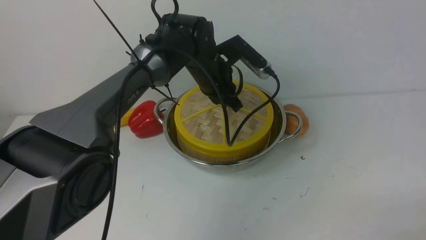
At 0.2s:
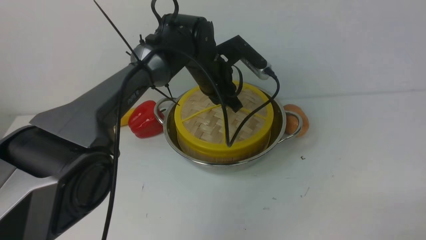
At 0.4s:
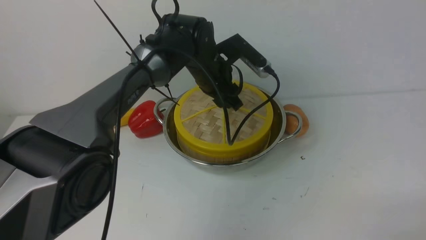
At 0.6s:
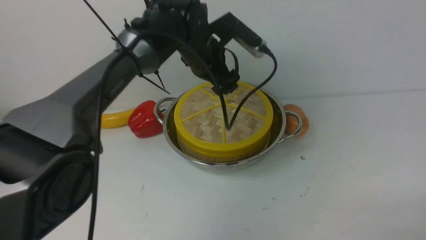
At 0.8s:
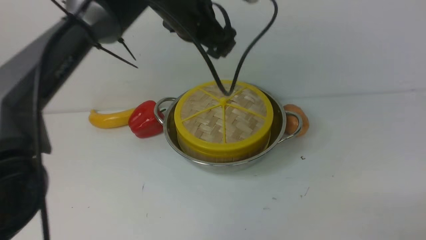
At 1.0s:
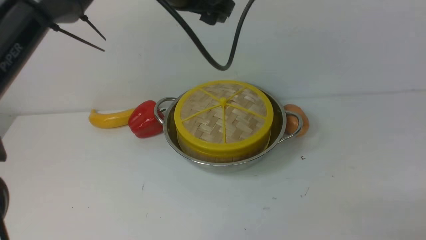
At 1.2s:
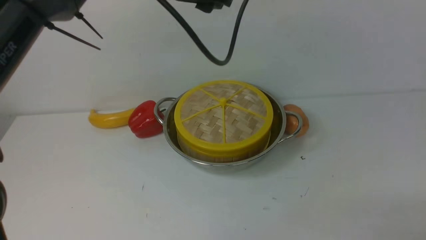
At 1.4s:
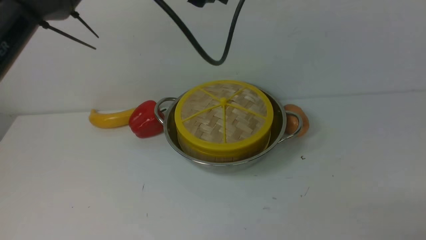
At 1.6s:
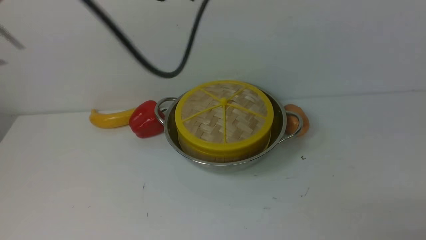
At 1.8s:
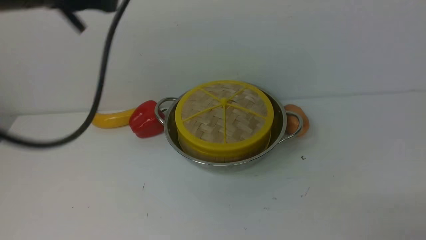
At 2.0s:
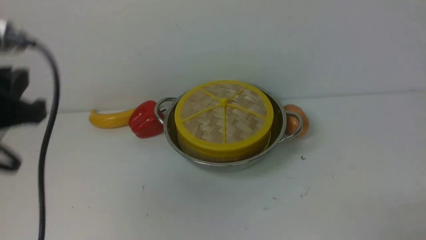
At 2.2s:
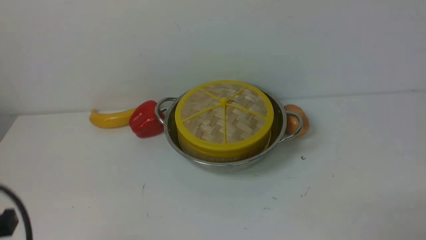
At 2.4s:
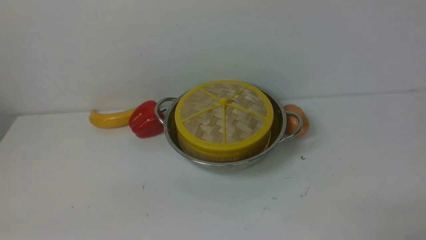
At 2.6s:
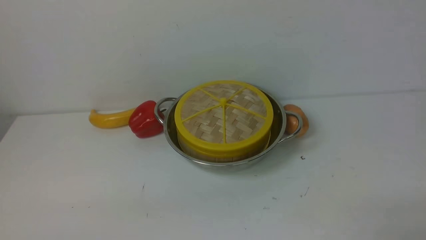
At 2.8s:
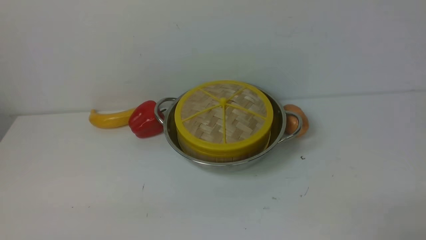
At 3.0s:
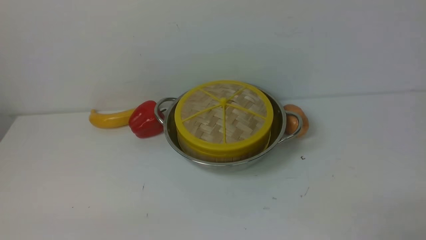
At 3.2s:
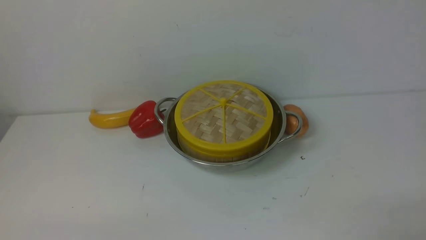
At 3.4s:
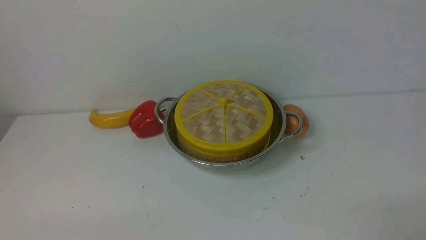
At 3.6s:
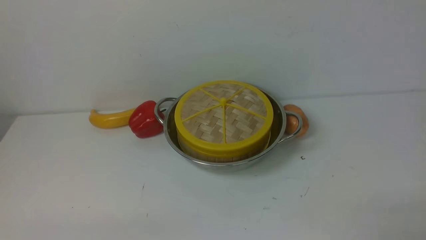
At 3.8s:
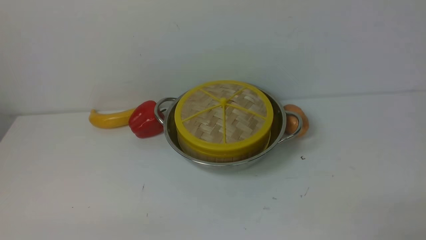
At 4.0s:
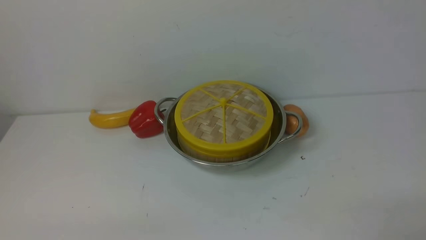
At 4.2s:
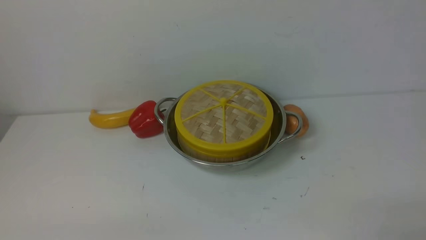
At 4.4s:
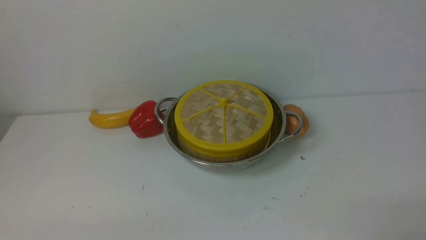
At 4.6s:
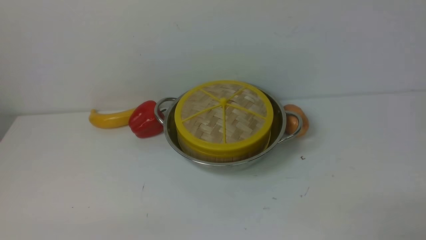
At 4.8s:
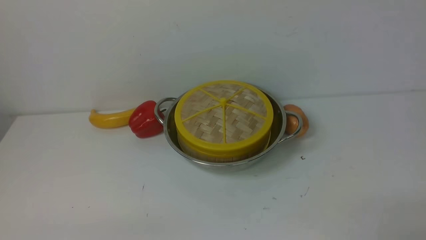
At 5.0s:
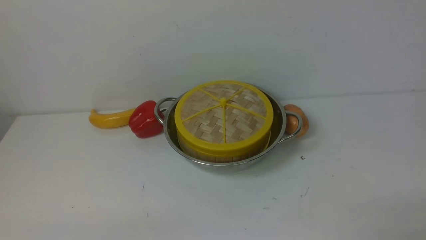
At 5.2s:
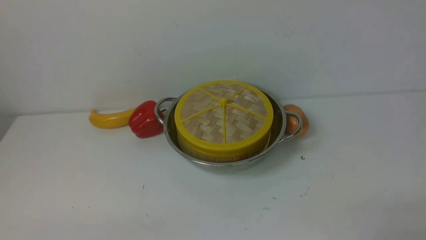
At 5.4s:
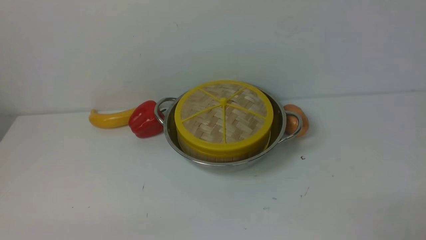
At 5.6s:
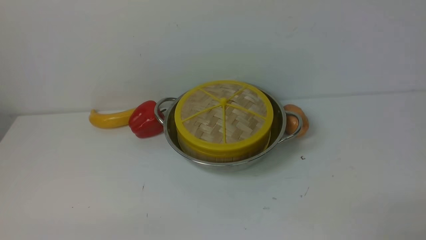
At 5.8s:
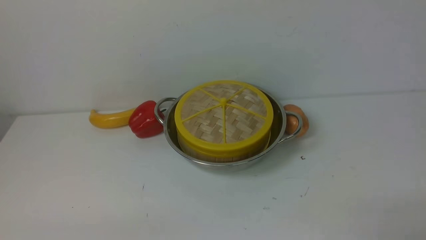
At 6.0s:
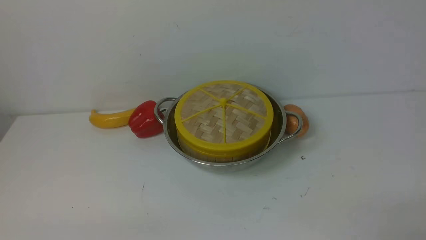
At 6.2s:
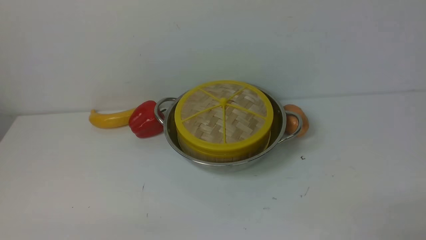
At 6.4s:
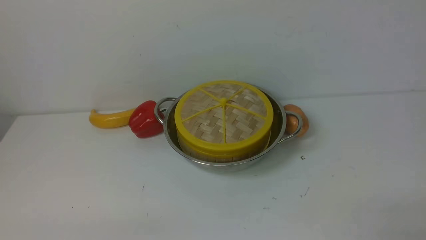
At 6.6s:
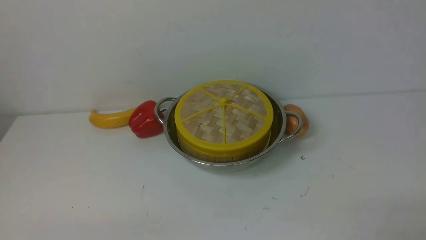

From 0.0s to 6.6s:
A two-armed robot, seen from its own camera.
Task of the whole recording: place the steamer in the pot on the white table, and put the lid on the steamer.
From 0.0s to 1.6s: The left gripper shifts approximately 25 cm upward, backward and to the left, and opens, then closes again.
From 1.6s to 3.2s: The left gripper shifts about 40 cm backward, downward and to the left.
From 5.0s to 6.6s: Both grippers stay put.

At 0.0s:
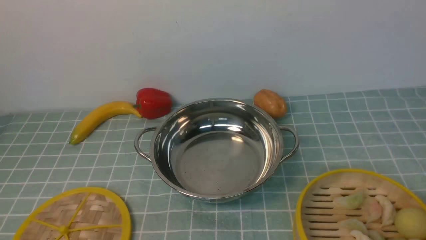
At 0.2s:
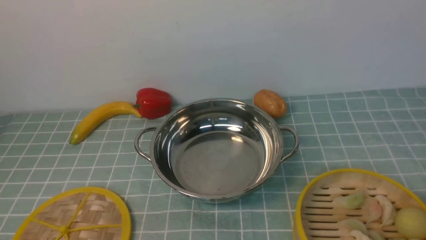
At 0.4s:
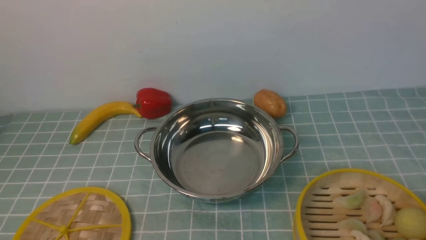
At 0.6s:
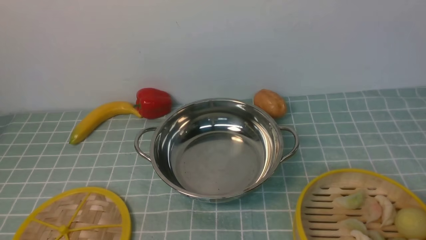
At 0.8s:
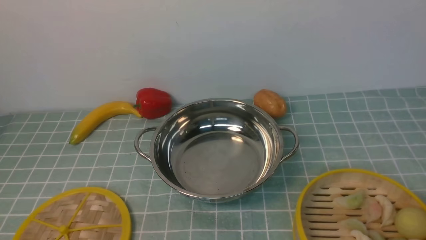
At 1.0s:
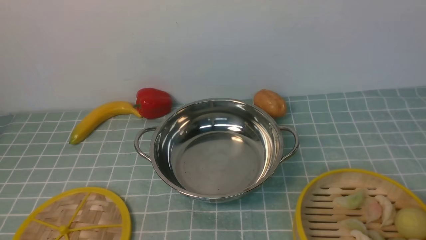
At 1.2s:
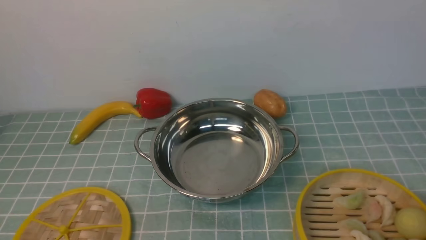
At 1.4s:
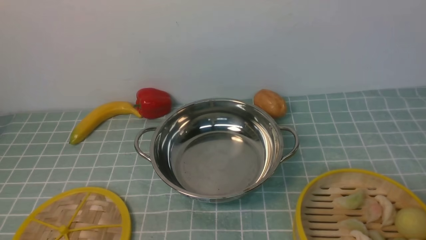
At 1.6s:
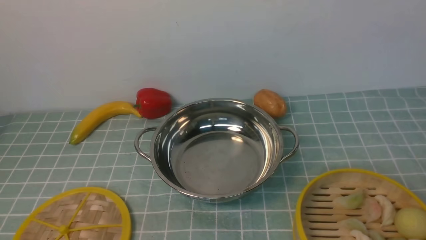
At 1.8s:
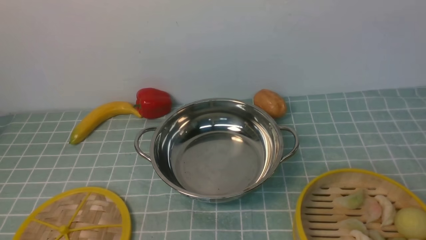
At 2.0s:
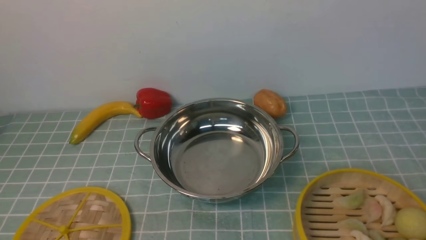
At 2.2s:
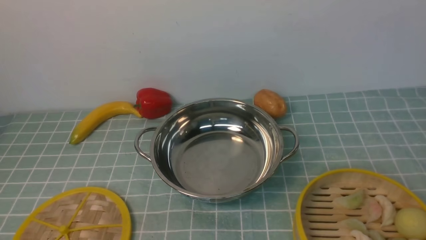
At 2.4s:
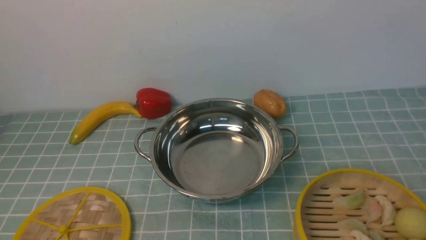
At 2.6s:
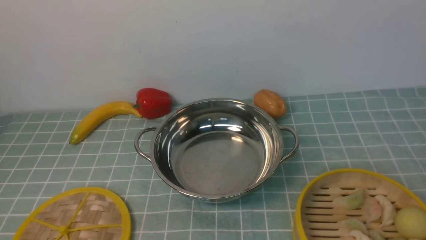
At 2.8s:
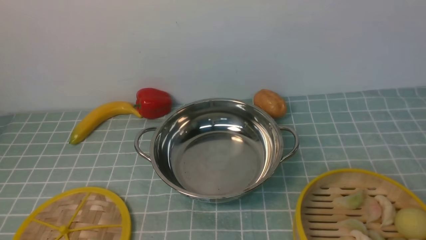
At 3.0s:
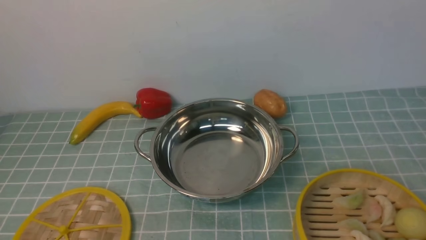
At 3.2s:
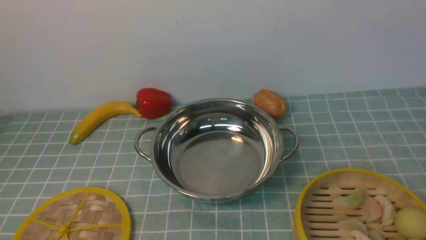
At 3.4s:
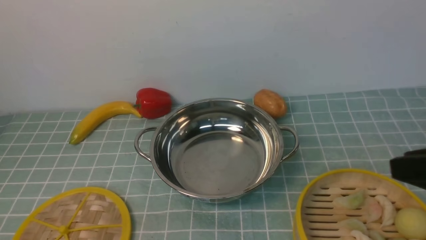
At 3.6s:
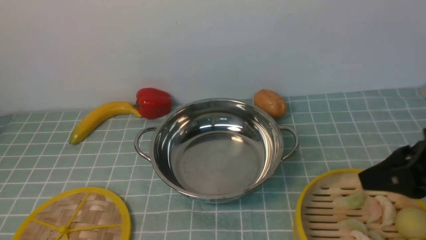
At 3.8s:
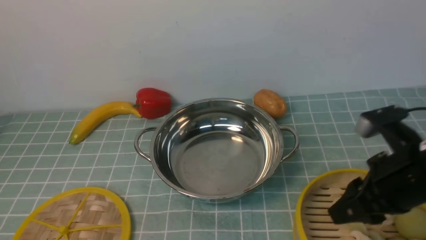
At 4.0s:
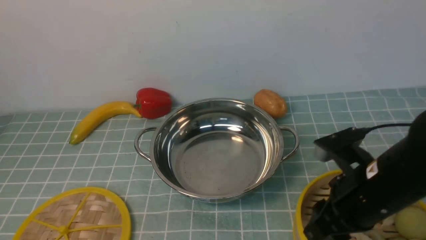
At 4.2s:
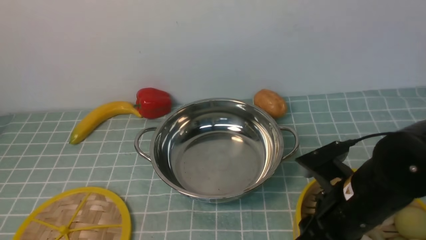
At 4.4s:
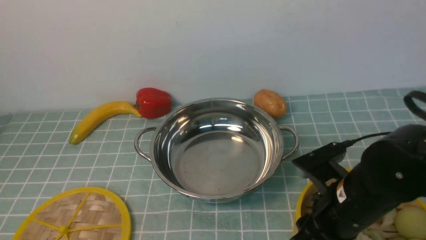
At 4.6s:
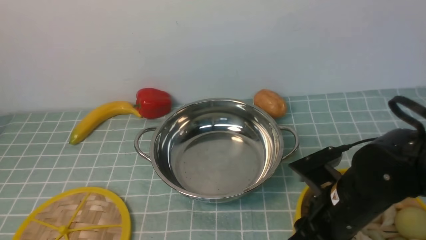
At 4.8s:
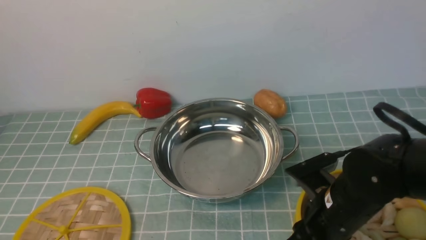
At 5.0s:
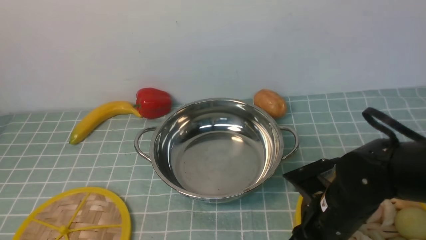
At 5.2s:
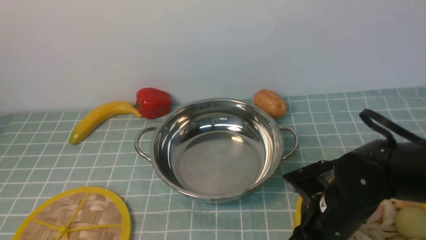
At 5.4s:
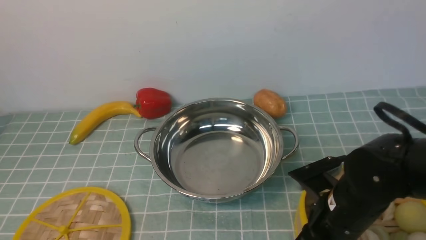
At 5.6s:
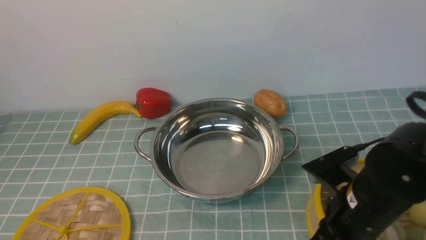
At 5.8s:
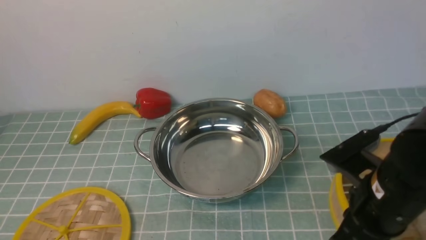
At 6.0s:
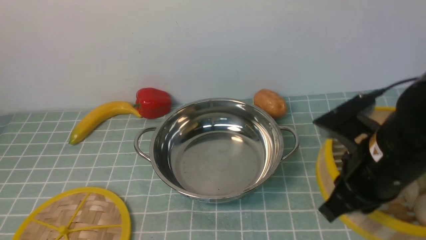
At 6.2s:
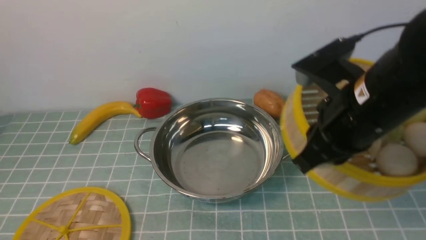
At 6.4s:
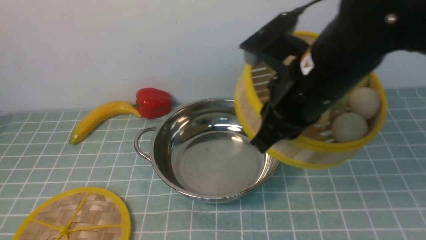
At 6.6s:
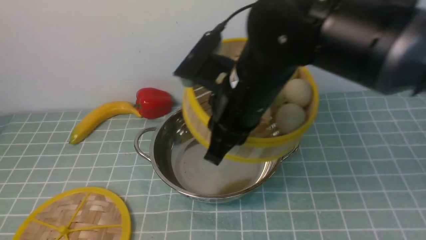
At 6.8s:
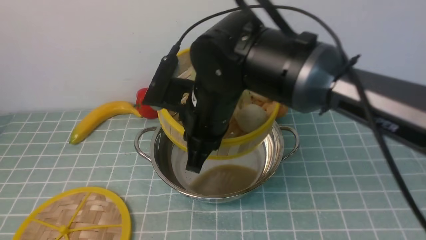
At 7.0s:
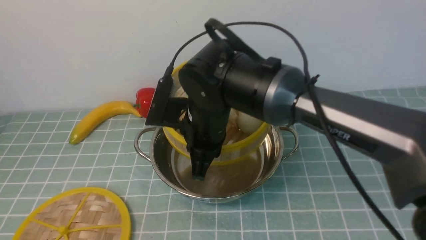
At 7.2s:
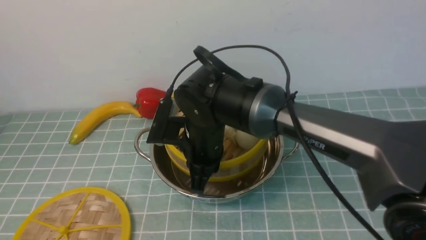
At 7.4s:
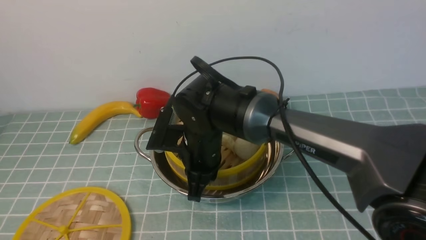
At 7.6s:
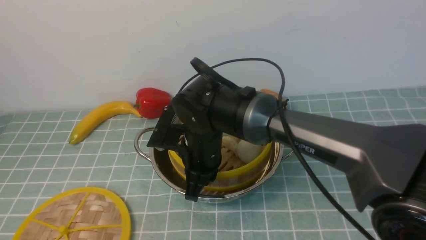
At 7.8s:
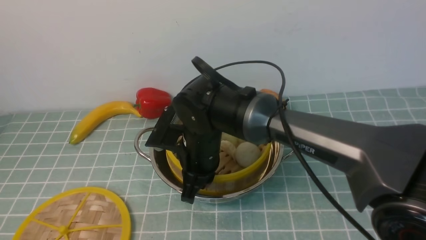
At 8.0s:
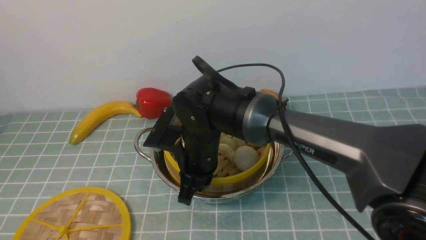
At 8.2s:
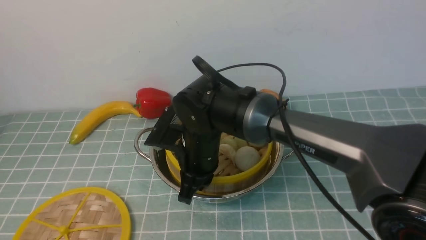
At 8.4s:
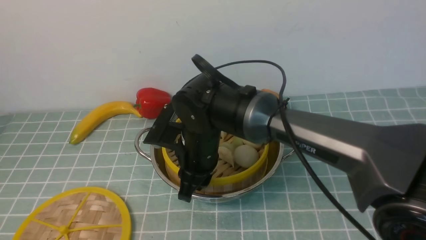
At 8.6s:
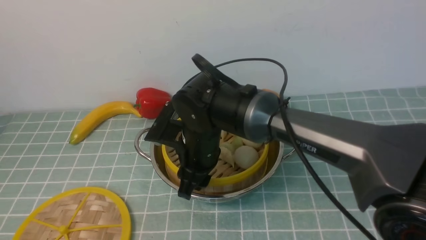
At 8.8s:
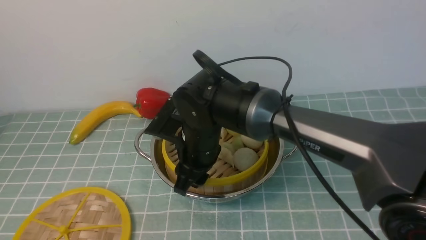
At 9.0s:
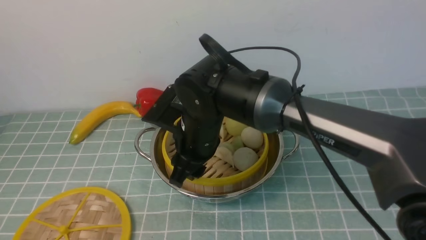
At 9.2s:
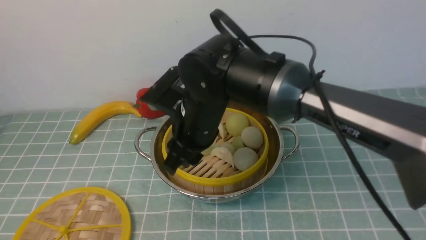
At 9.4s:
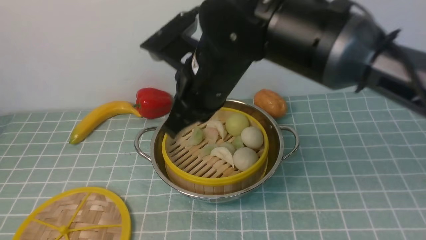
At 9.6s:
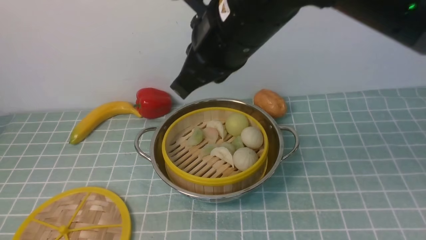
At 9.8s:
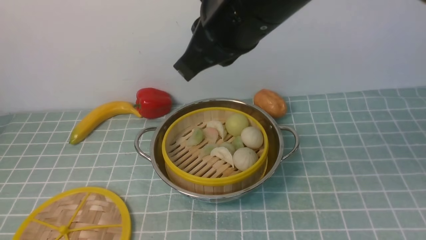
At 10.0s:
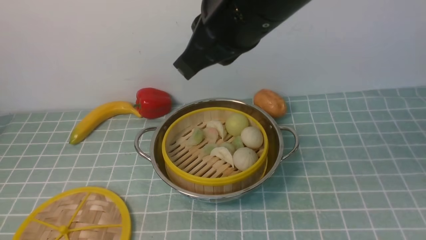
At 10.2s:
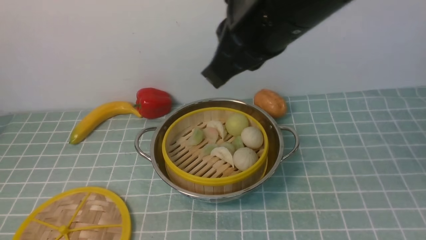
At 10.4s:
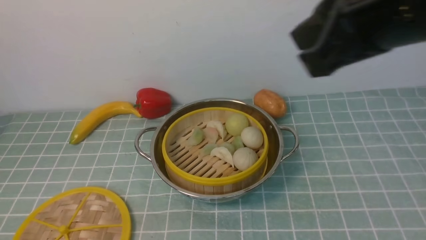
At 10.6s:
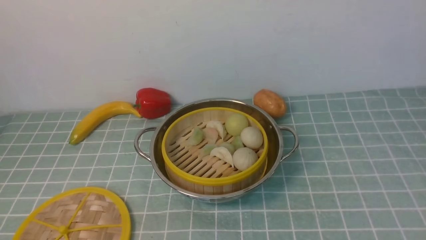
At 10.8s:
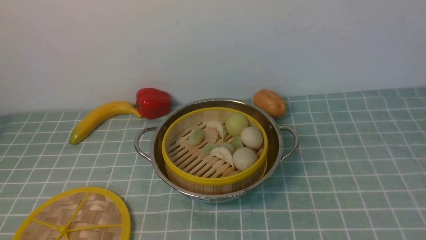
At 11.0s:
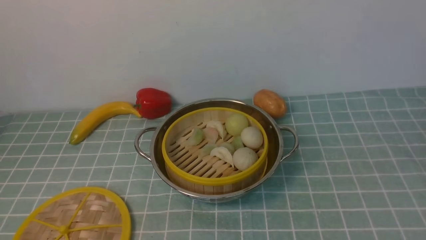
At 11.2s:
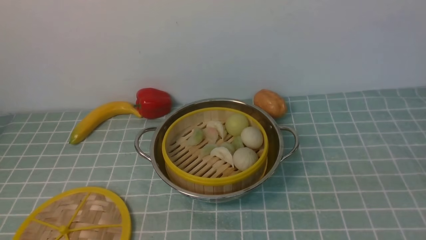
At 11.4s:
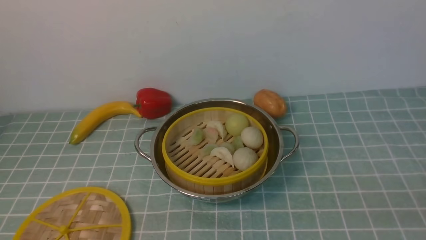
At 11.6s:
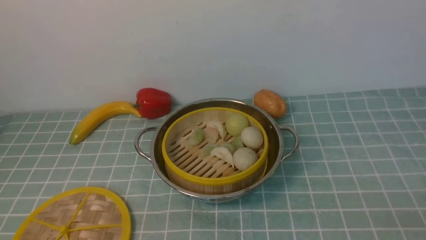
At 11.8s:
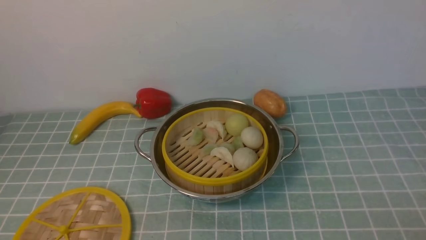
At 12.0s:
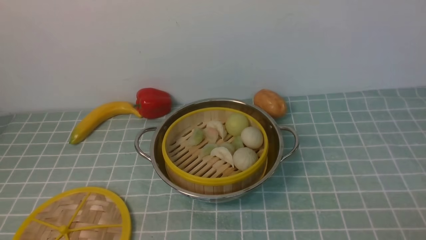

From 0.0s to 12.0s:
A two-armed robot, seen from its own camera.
Task of the whole recording: place the steamer in the pot on the blue tablecloth, and put the lid on the steamer.
Step, from 0.0s to 5.8s: use the right arm to lift the steamer closest to it.
Step, from 6.0s to 9.0s: use the right arm to put the steamer into the iron steamer pot in the middle.
From 3.0s to 4.4s: The right gripper is displaced forward, downward and to the left by roughly 25 cm.
From 4.4s to 6.0s: The right gripper is displaced upward by approximately 10 cm, and closes up.
From 6.0s to 7.6s: The right gripper moves to the left, forward and downward, approximately 25 cm.
From 7.6s to 9.0s: The right gripper opens up.
From 9.0s to 10.4s: The right gripper is displaced to the right, upward and backward by about 35 cm, and closes up.
From 10.4s to 12.0s: The right gripper heads downward, to the right and backward, covering about 35 cm, and opens up.
